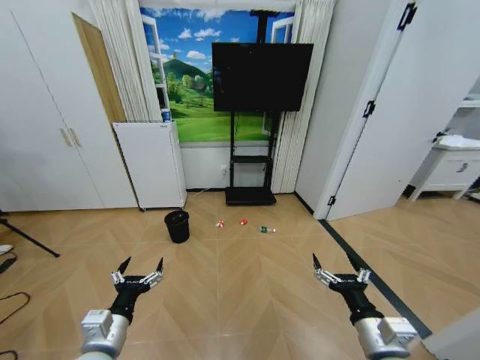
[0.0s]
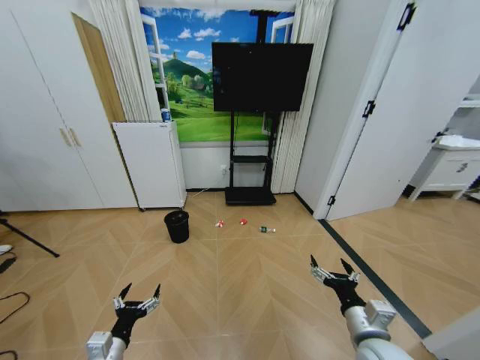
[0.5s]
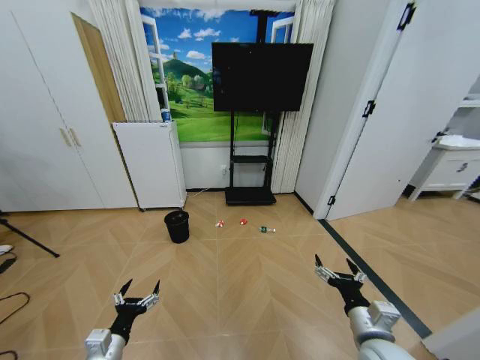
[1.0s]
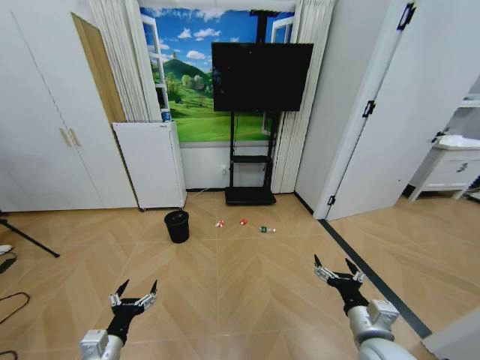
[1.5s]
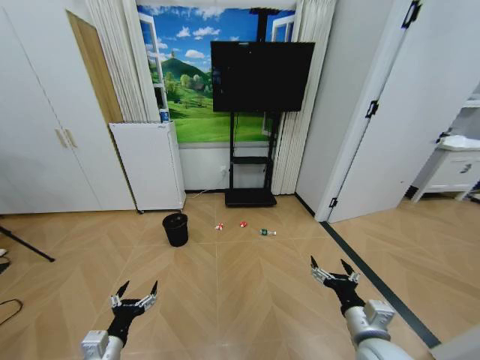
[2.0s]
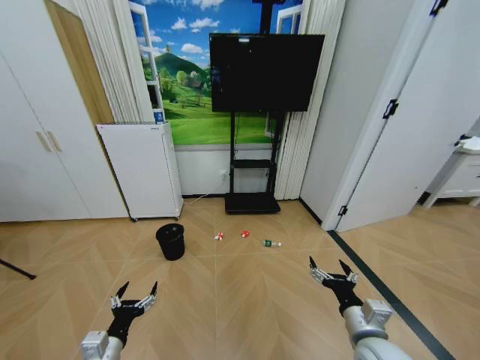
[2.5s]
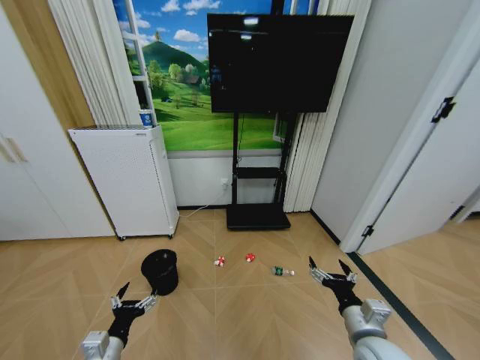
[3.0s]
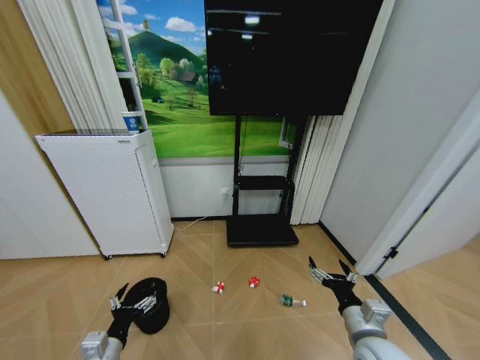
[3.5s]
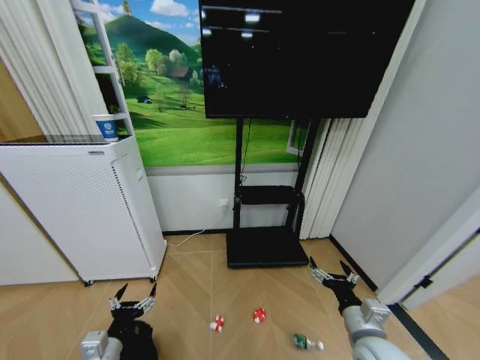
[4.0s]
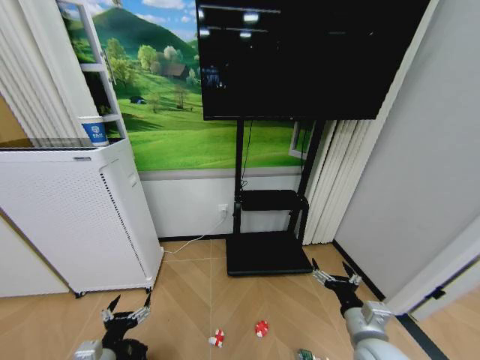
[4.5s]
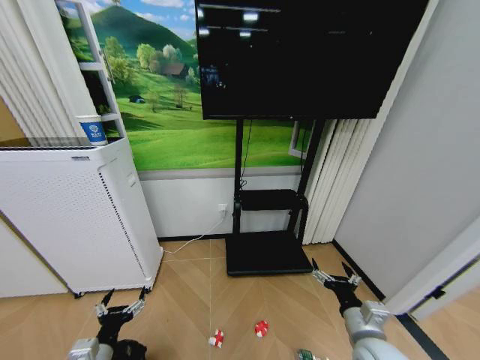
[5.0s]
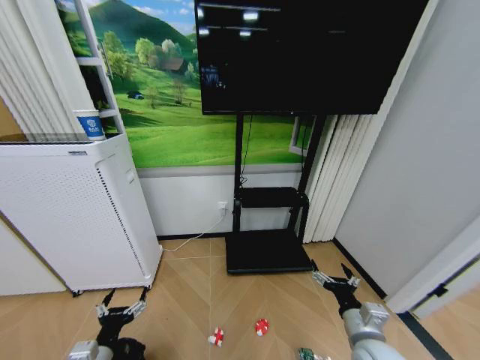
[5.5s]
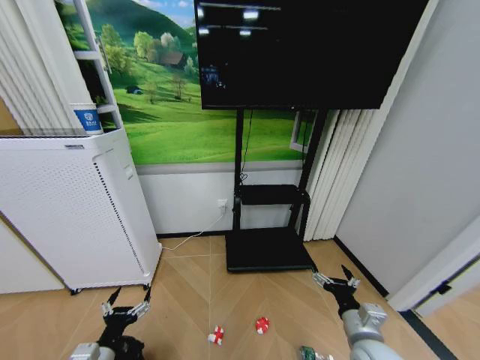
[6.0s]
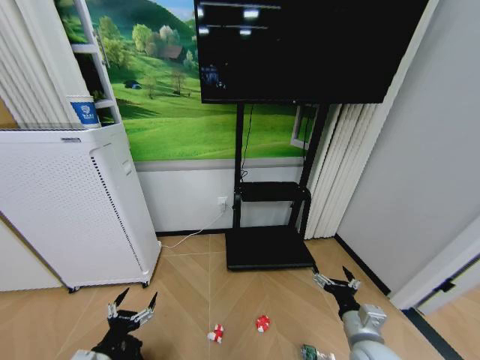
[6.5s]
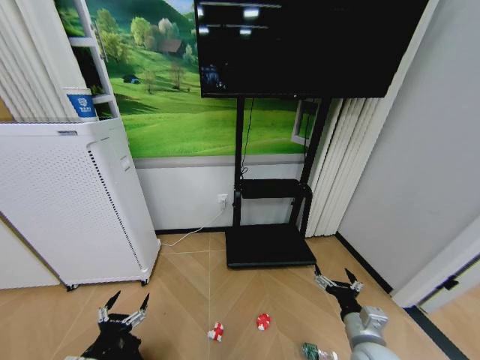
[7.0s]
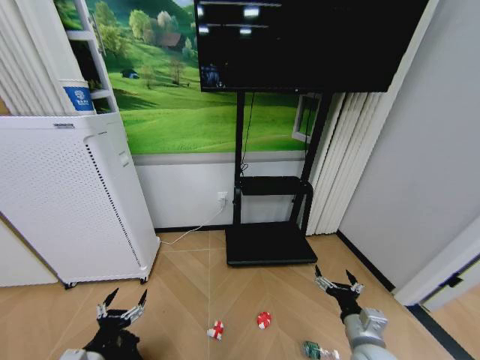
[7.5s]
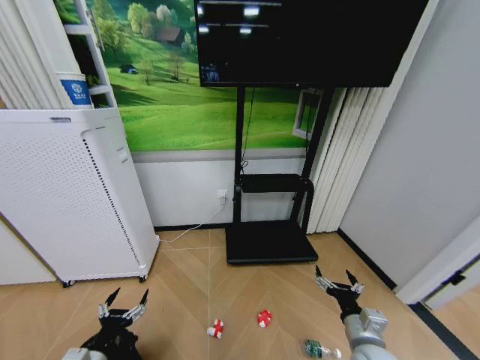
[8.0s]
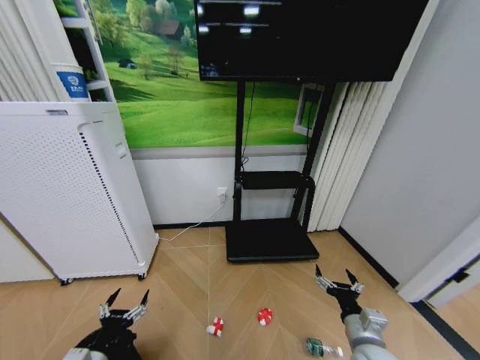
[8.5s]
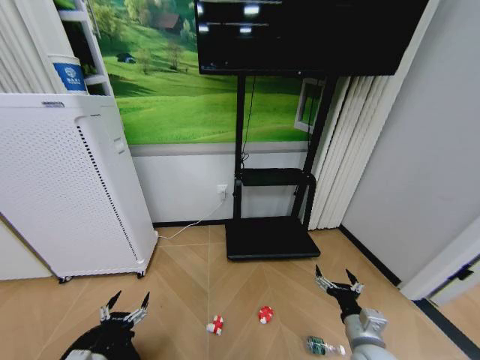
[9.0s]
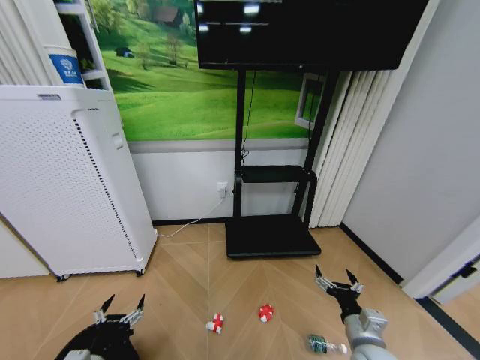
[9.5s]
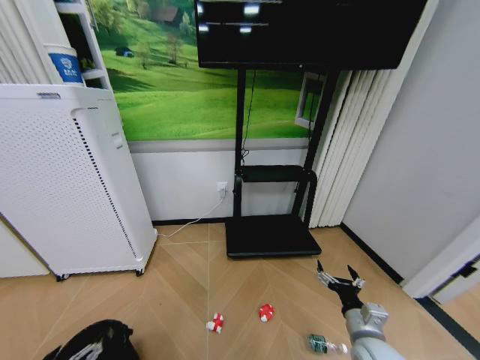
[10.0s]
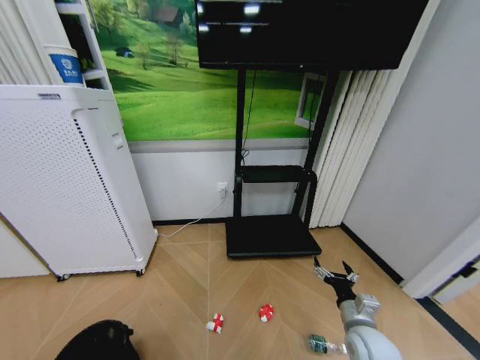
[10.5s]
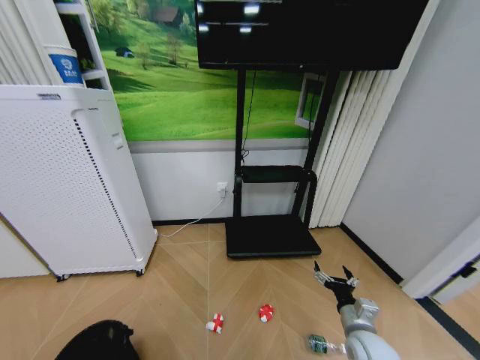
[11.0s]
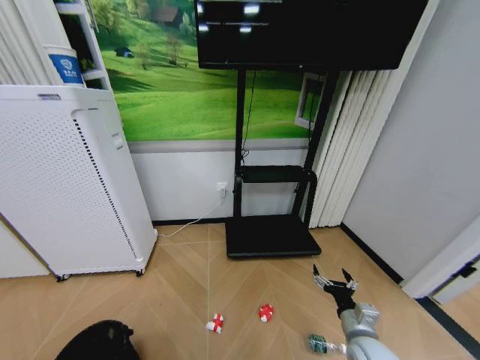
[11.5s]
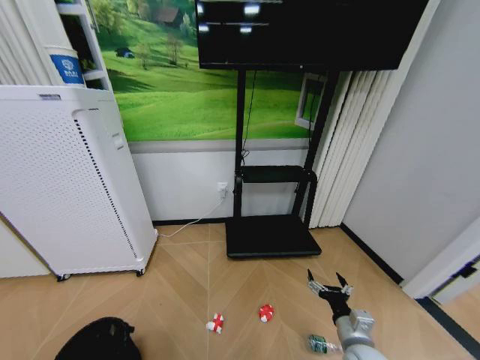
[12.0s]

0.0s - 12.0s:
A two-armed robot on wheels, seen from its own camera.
Task of the whole recording: Pick up the trash bin and place the garbage on the floor into it.
8.0s - 10.0s: The left gripper travels upward and backward by about 10 cm.
10.0s - 12.0s: The left gripper moves downward and to the left, approximately 15 cm, and closes its fingers.

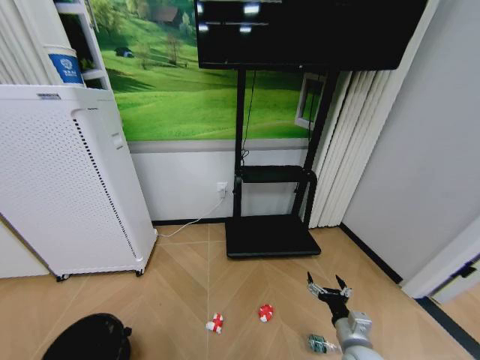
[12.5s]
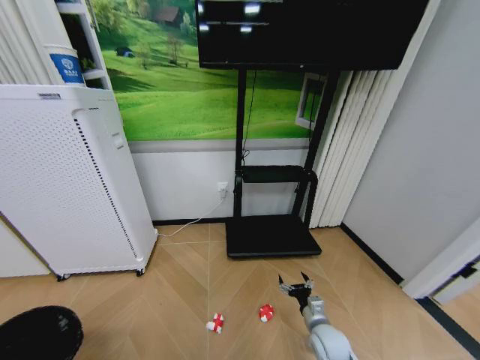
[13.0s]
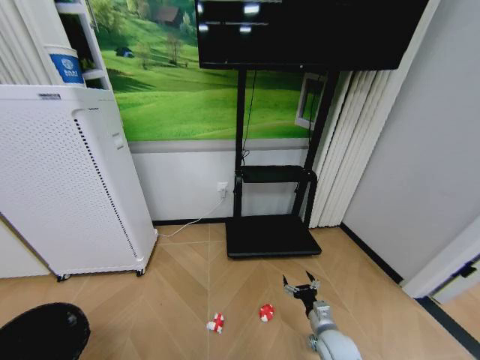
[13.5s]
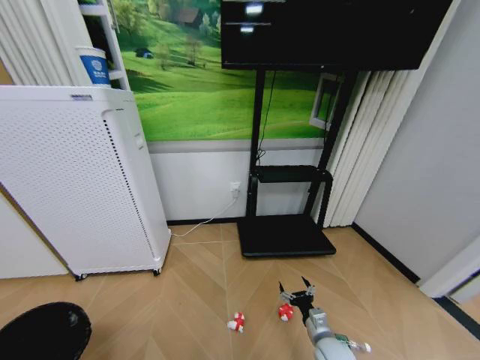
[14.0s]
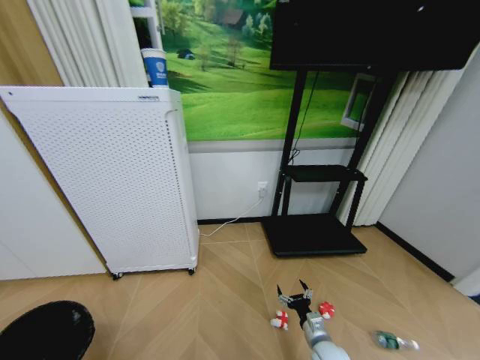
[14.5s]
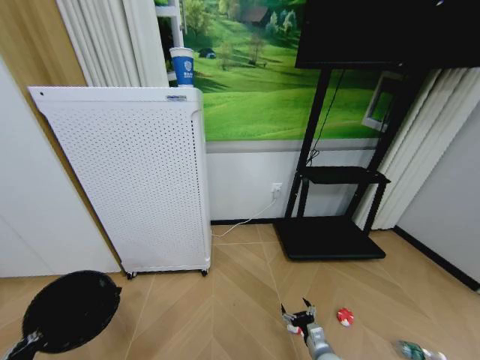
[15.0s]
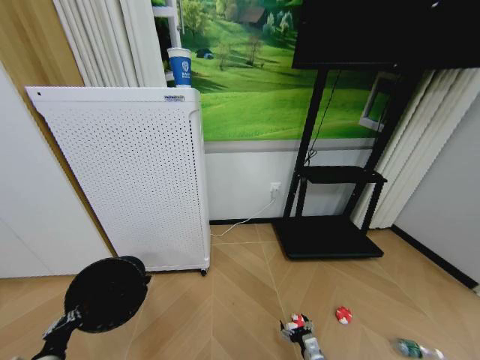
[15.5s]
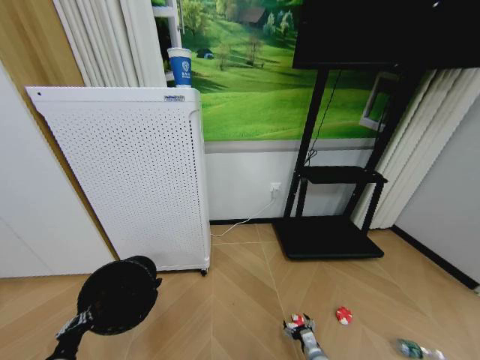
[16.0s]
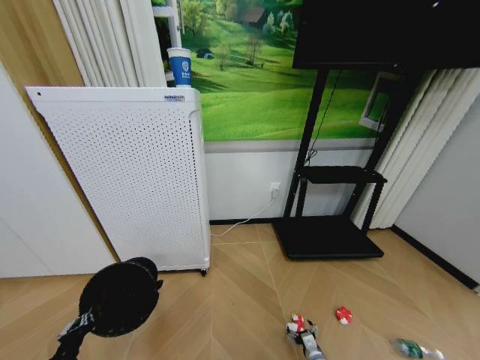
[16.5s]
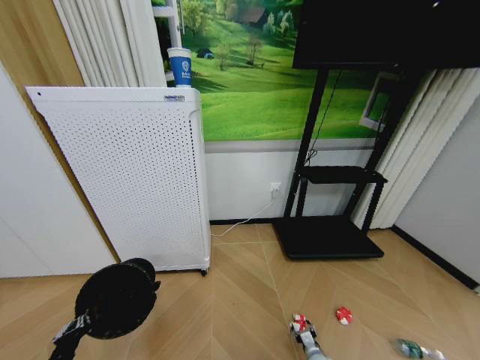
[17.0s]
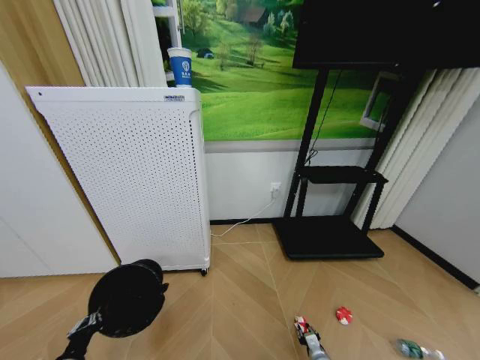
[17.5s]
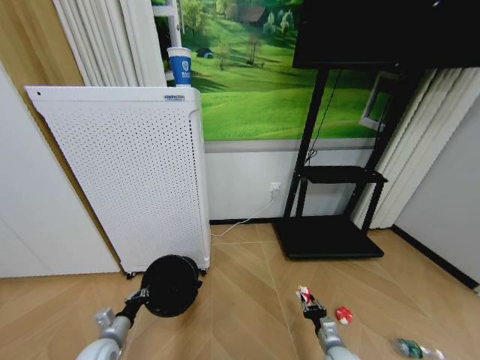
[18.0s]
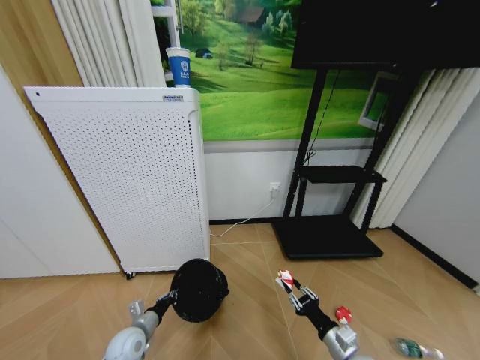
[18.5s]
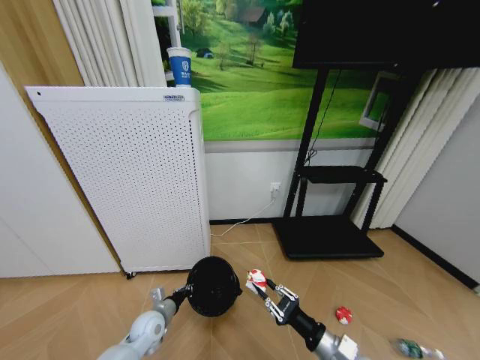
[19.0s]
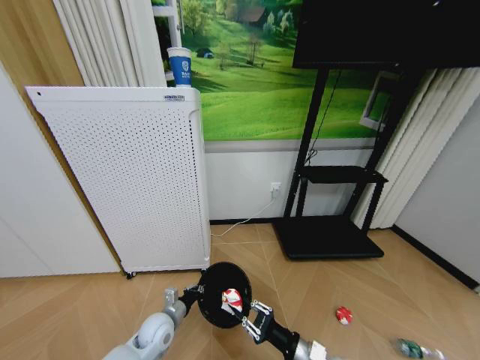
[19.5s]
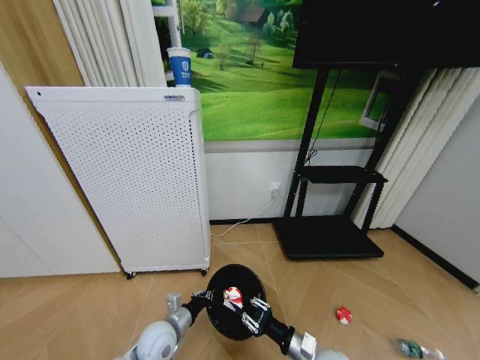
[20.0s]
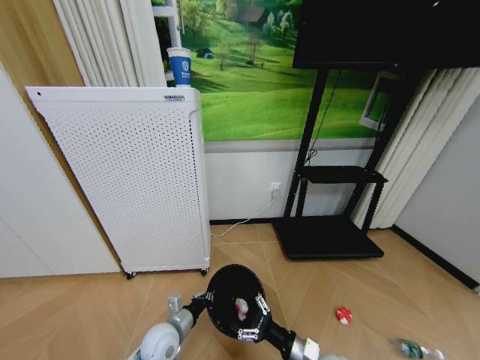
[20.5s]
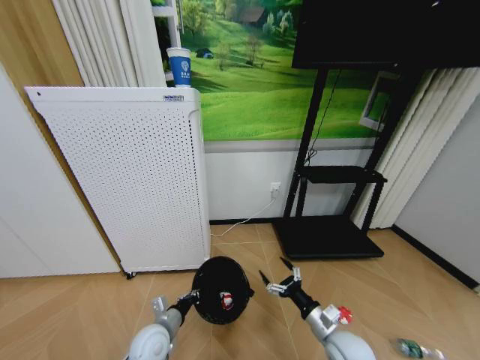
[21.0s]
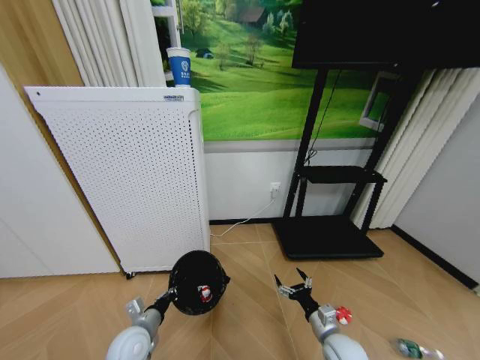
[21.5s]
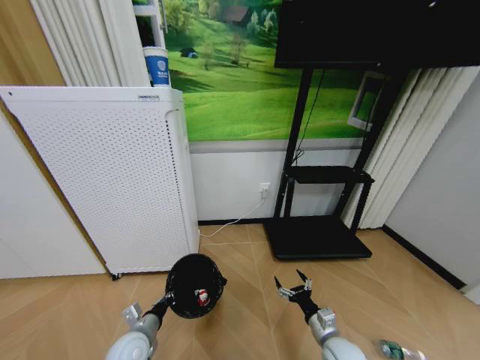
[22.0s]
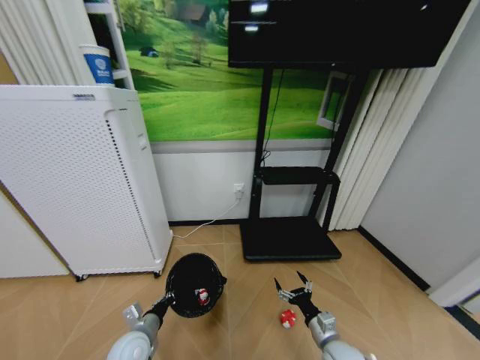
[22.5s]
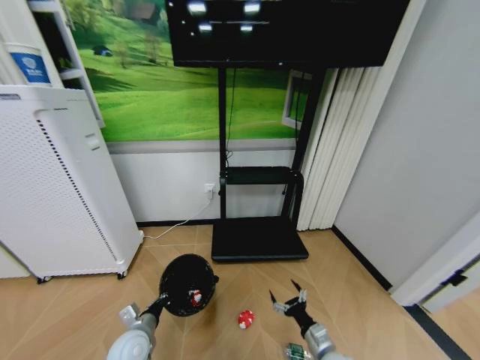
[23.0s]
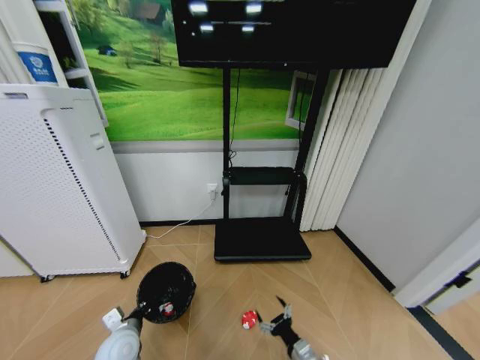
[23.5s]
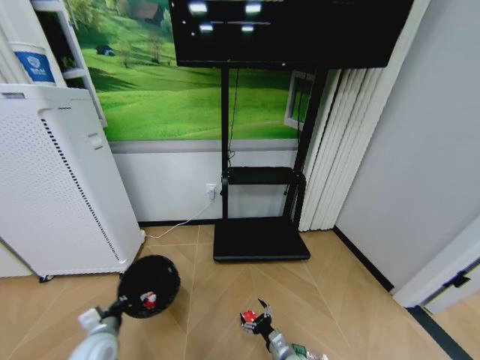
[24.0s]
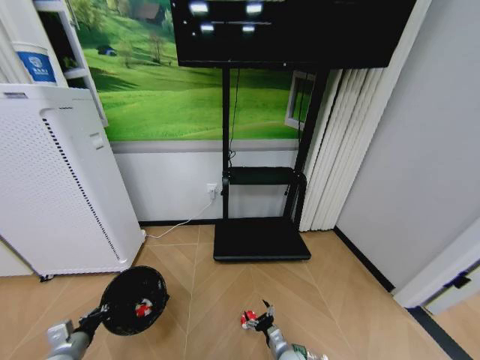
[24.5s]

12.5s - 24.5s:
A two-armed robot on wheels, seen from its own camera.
Task of the whole recording: Pick up the trash bin and place the garbage on the floor into it.
12.5s - 14.5s: The right gripper moves downward, approximately 10 cm; the left gripper goes some 5 cm to the left.
14.5s - 16.5s: The right gripper moves downward, some 15 cm. The left gripper moves to the right and forward, some 10 cm.
16.5s - 18.5s: The left gripper heads forward and to the right, covering some 20 cm, while the right gripper shifts approximately 20 cm upward, and closes up.
18.5s - 20.5s: The left gripper moves to the right, roughly 10 cm. Meanwhile the right gripper goes roughly 10 cm to the left, and opens up.
20.5s - 22.5s: The right gripper moves to the right, some 5 cm, while the left gripper goes roughly 5 cm to the left.
22.5s - 24.5s: The right gripper shifts roughly 15 cm downward and to the left; the left gripper shifts roughly 15 cm to the left.

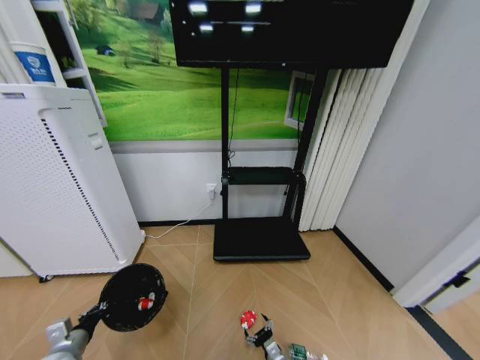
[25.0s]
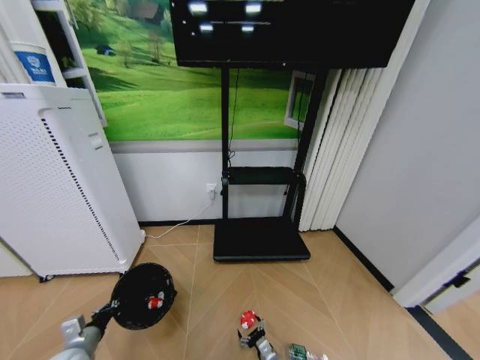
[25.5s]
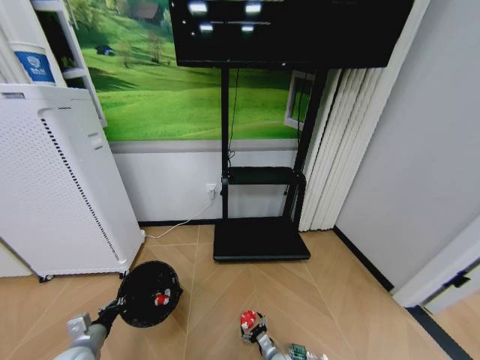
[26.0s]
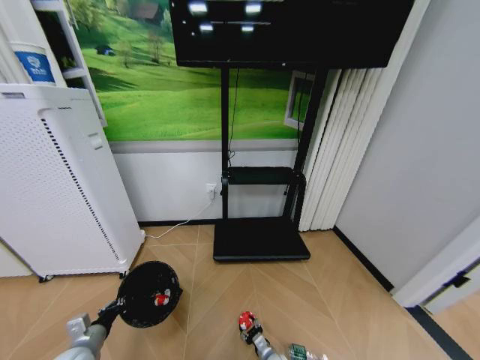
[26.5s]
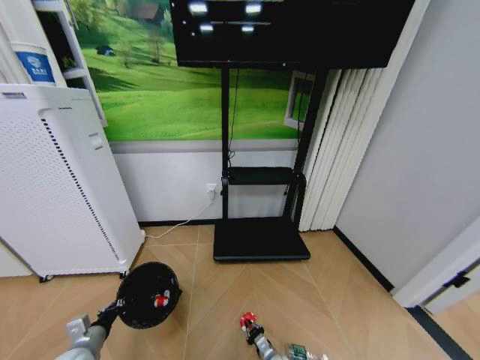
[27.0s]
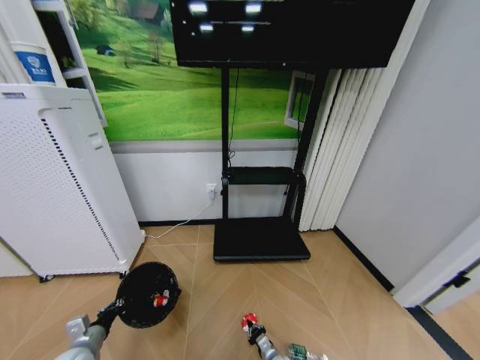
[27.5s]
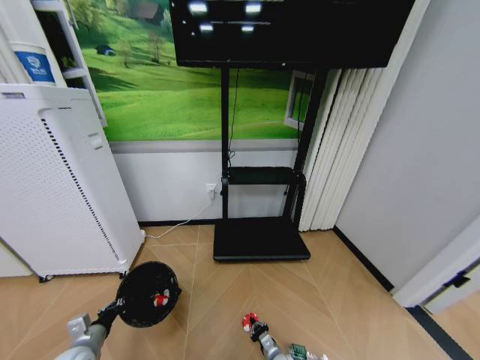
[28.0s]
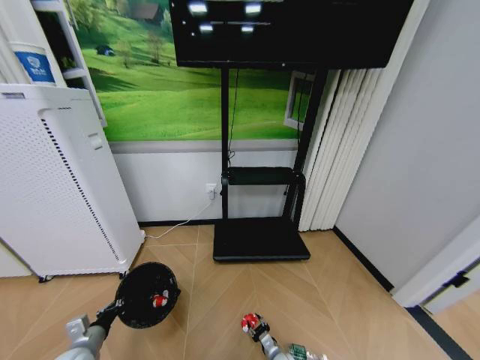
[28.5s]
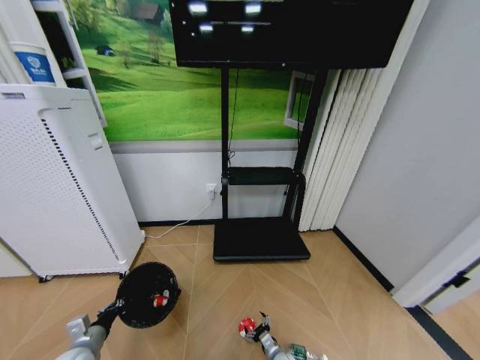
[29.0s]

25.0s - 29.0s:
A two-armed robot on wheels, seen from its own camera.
Task of the whole recording: Pick up the trash bin and place the garbage on the floor into it.
25.0s - 27.0s: The right gripper shifts by about 5 cm, and closes up.
27.0s - 29.0s: The right gripper opens.
